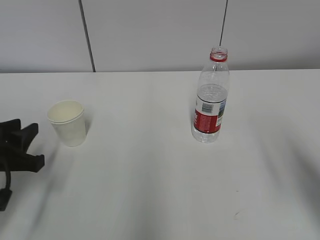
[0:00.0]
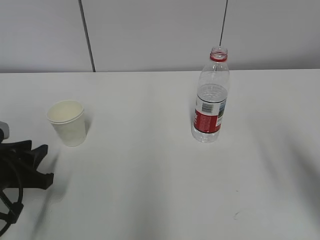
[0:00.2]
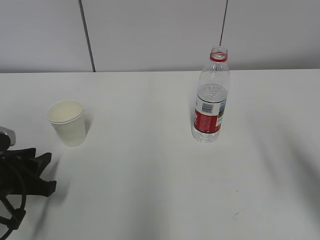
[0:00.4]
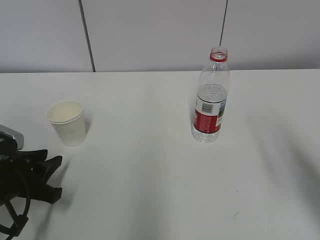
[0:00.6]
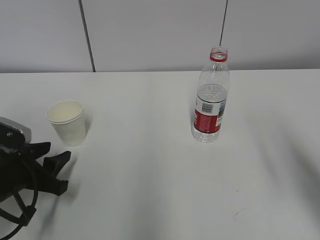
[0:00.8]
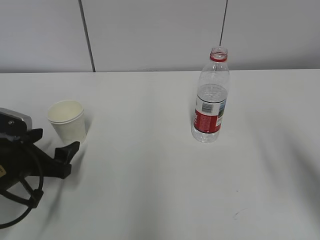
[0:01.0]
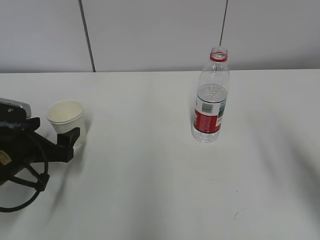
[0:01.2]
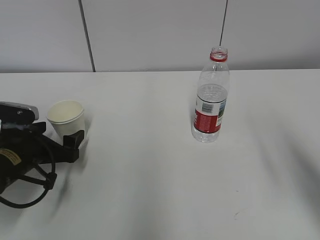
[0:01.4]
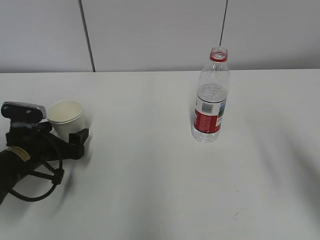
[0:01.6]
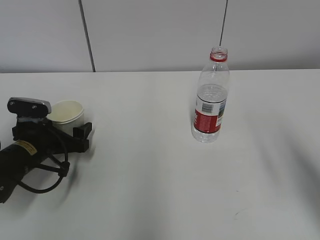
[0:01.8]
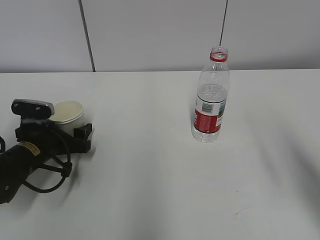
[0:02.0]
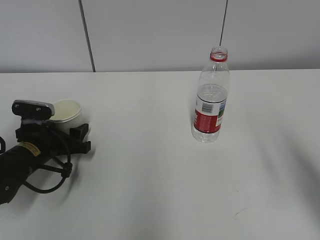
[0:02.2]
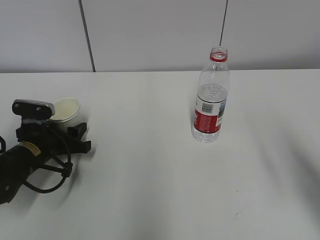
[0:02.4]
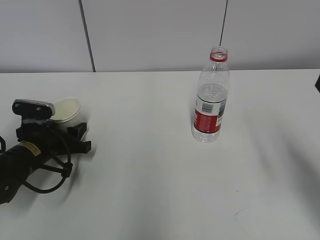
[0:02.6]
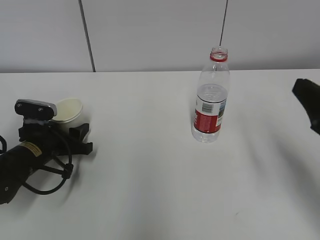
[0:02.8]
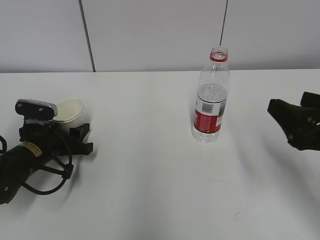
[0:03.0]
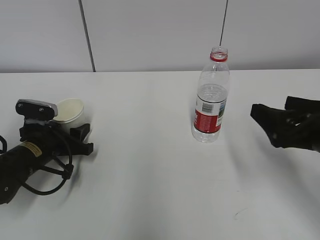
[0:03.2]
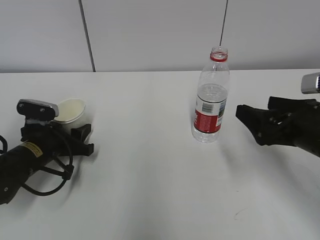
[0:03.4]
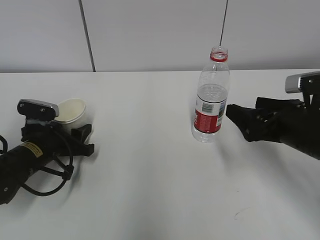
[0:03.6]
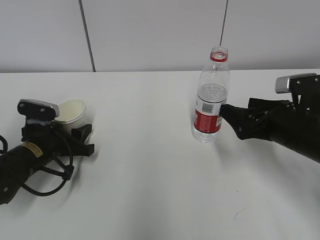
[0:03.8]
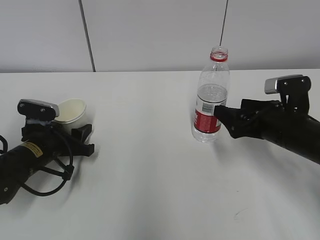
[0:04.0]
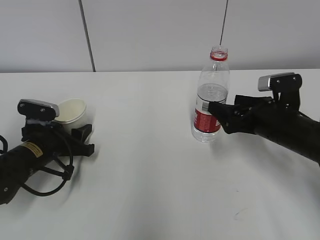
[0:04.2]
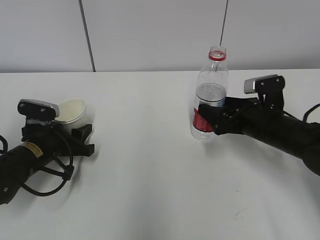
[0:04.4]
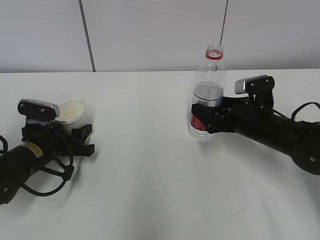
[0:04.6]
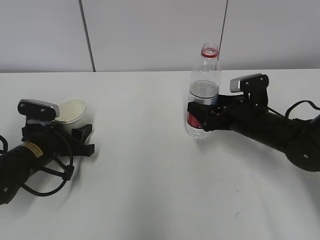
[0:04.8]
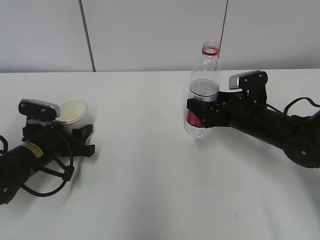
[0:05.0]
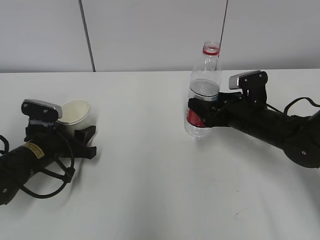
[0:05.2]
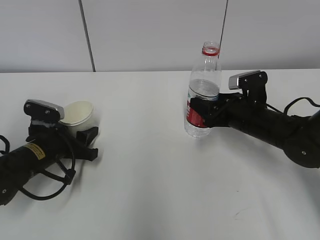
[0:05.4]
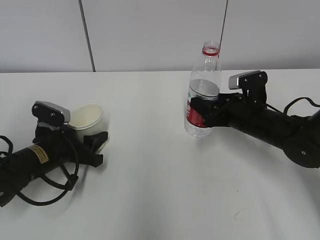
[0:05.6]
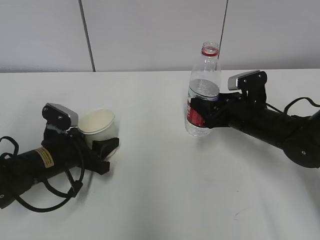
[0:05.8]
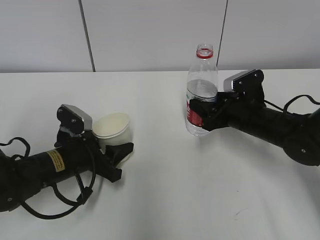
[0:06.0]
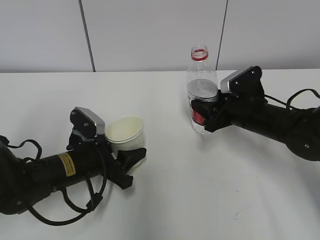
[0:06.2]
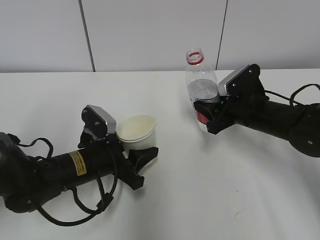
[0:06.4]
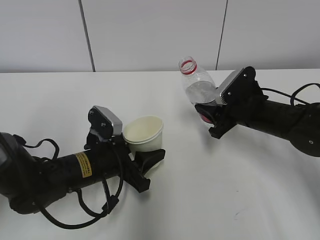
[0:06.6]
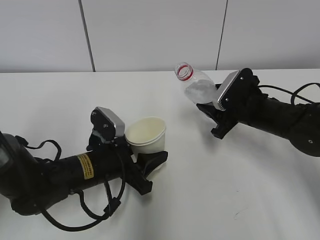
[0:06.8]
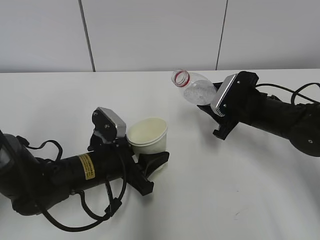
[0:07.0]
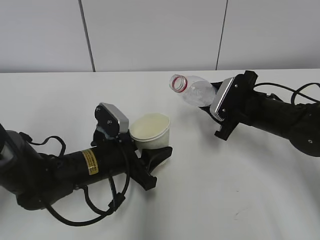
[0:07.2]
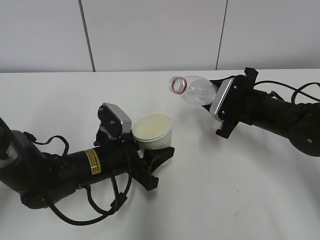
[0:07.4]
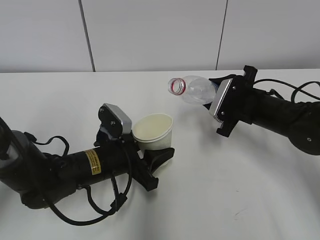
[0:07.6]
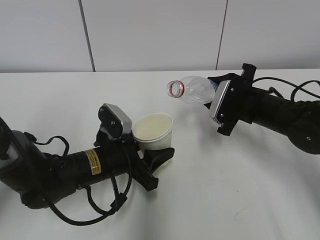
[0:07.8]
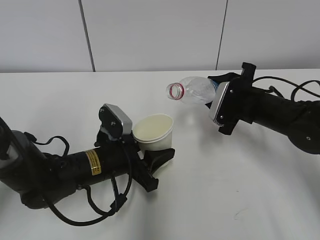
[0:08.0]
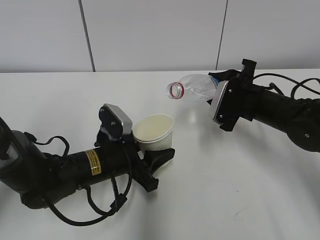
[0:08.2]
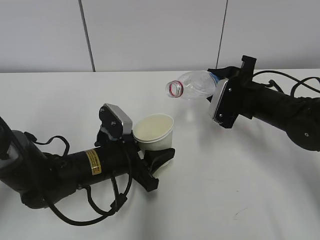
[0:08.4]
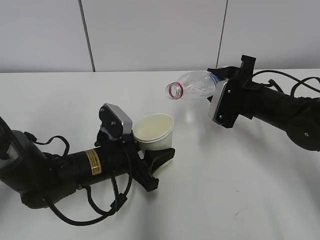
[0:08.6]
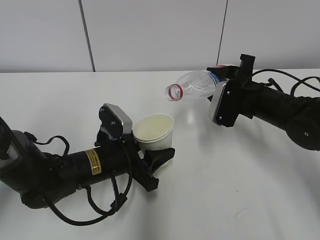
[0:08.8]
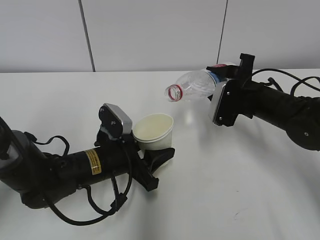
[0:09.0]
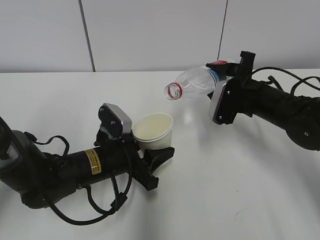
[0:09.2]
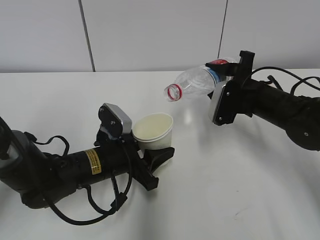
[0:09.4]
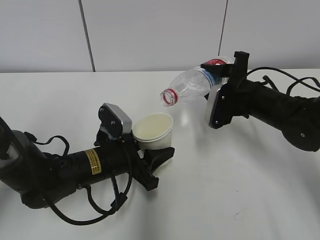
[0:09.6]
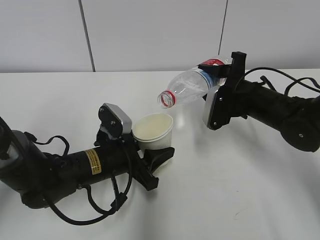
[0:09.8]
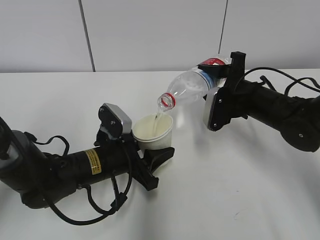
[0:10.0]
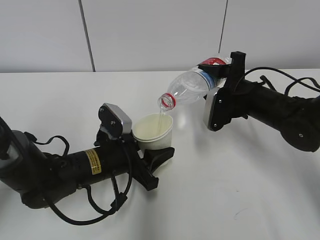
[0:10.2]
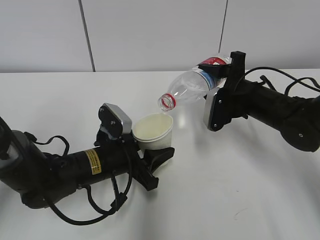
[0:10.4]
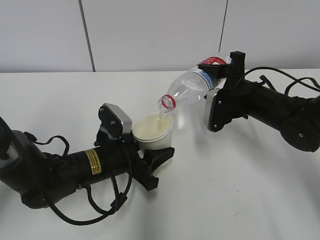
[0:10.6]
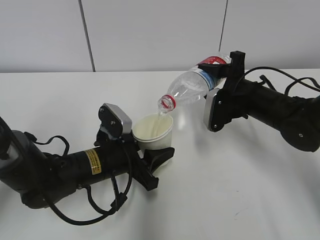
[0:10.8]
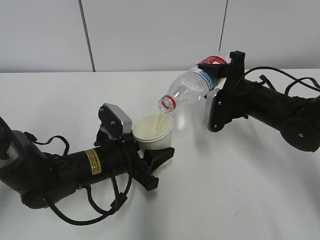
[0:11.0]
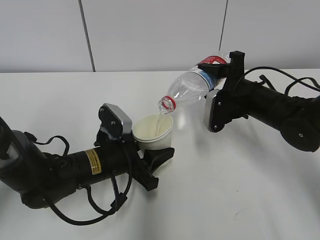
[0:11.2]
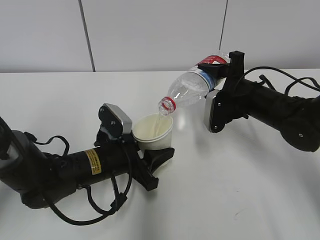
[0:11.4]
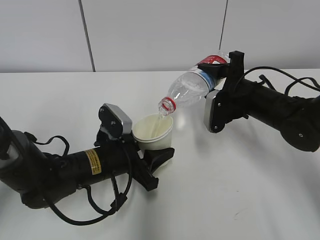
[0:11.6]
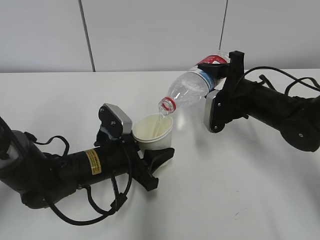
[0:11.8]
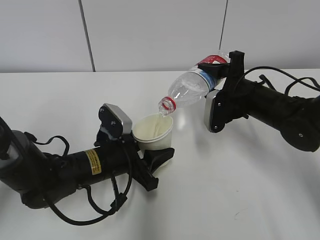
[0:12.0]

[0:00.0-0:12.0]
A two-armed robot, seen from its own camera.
Step, 0:01.4 to 0:03.6: Grab the water bottle with the right hand.
Step, 0:03.8 to 0:07.4: Lift the paper cup with the left hand.
Step, 0:07.6 to 0:10.8: Pour water with the right hand.
0:00.0 to 0:01.6: The left gripper travels forward and downward by some 10 cm, and opens up.
0:01.6 to 0:03.0: The right gripper shifts by approximately 5 cm, while the left gripper closes its fingers.
0:03.0 to 0:04.4: The right gripper is displaced forward and downward by about 15 cm, and opens its fingers.
0:04.4 to 0:06.0: The left gripper travels to the right by about 5 cm, while the right gripper closes up.
0:06.0 to 0:07.6: The left gripper goes about 5 cm to the right.
0:07.6 to 0:09.0: The grippers stay close to where they were, moving slightly.
0:09.0 to 0:10.4: The grippers stay close to where they were, moving slightly.
0:10.4 to 0:12.0: Both grippers stay about where they are.

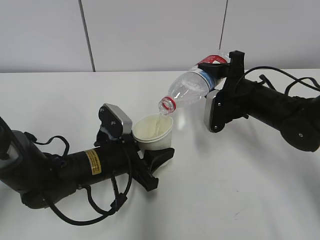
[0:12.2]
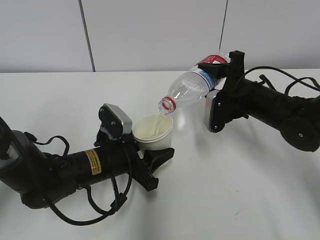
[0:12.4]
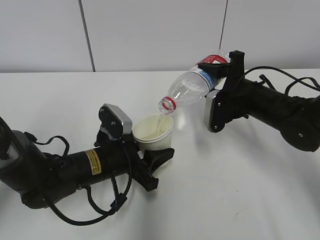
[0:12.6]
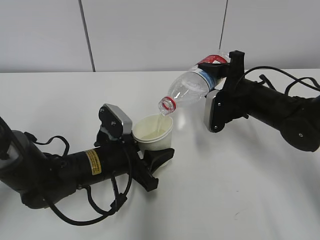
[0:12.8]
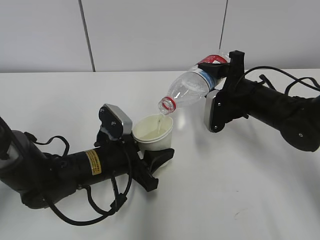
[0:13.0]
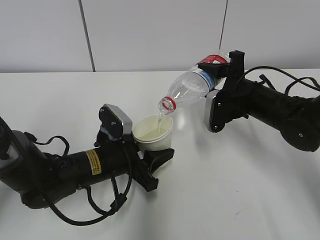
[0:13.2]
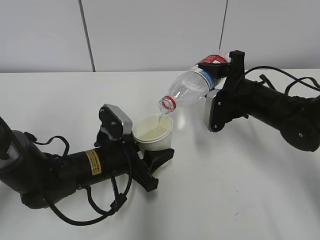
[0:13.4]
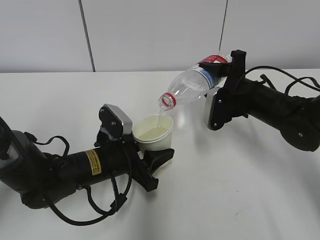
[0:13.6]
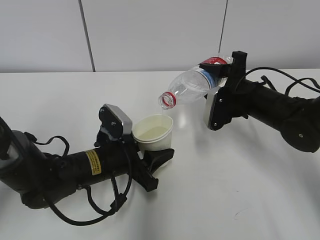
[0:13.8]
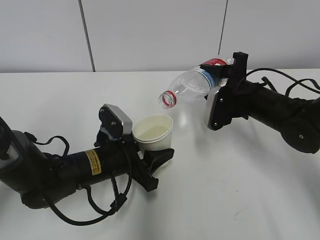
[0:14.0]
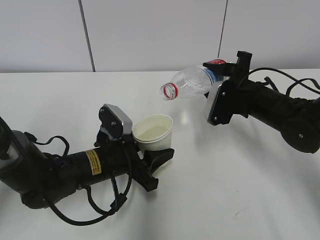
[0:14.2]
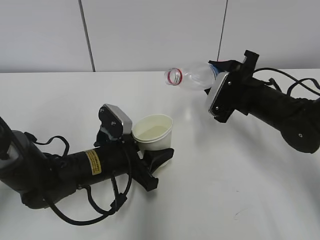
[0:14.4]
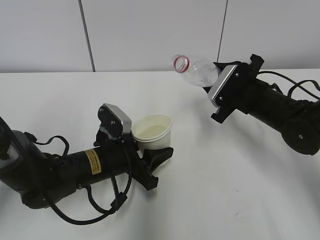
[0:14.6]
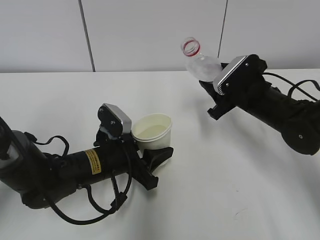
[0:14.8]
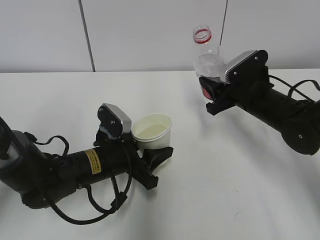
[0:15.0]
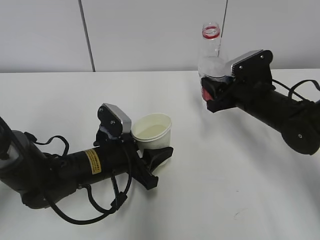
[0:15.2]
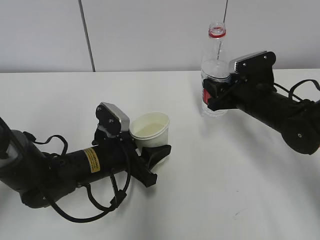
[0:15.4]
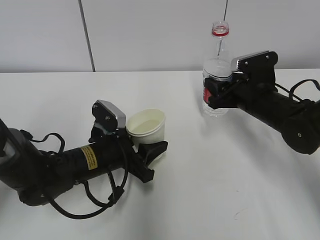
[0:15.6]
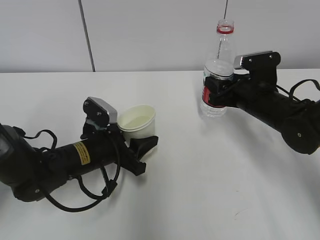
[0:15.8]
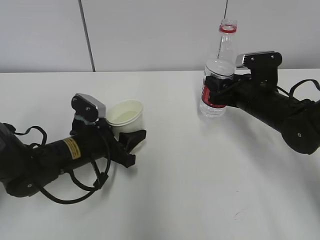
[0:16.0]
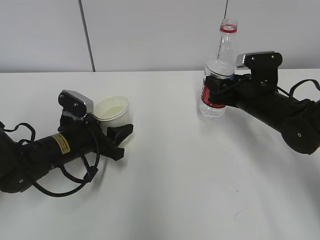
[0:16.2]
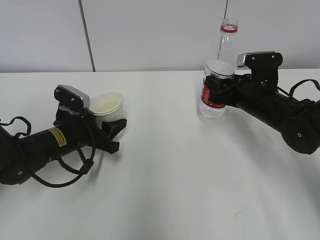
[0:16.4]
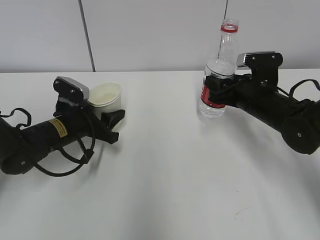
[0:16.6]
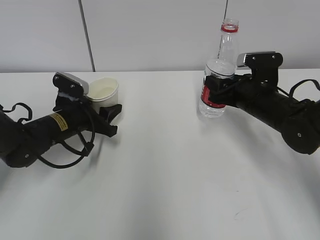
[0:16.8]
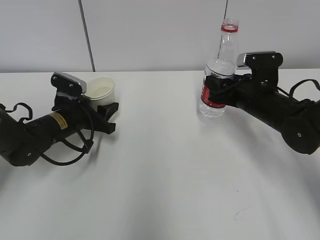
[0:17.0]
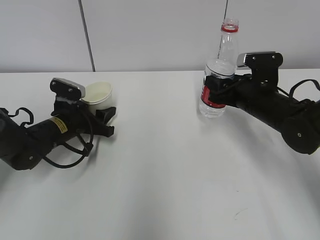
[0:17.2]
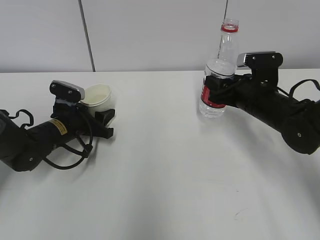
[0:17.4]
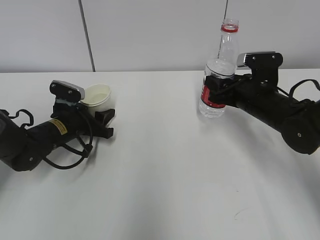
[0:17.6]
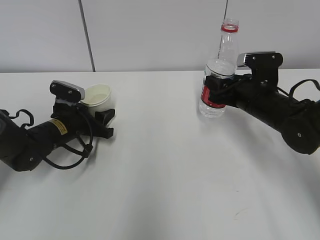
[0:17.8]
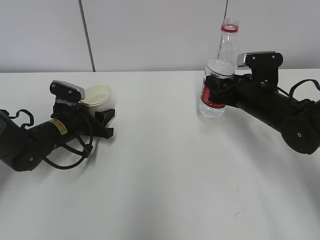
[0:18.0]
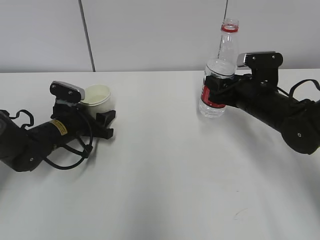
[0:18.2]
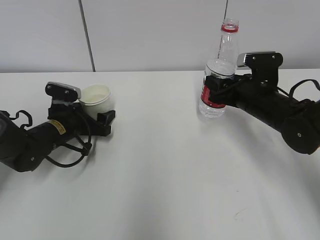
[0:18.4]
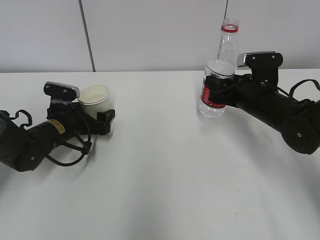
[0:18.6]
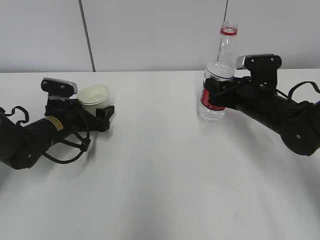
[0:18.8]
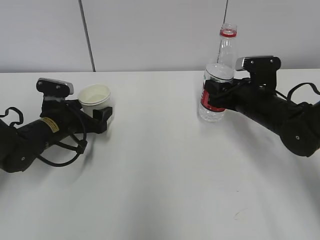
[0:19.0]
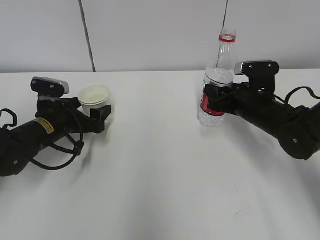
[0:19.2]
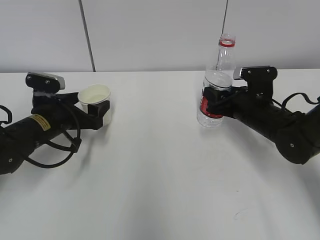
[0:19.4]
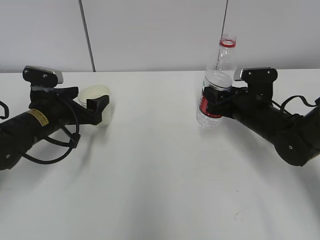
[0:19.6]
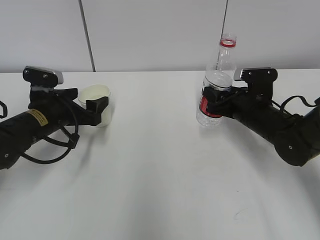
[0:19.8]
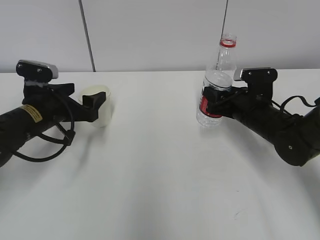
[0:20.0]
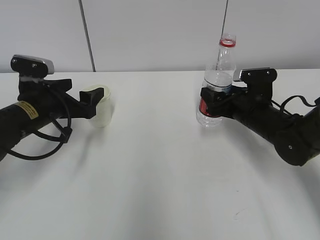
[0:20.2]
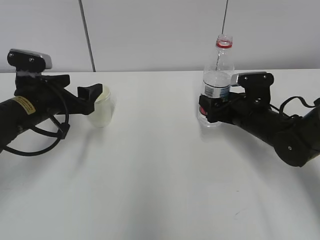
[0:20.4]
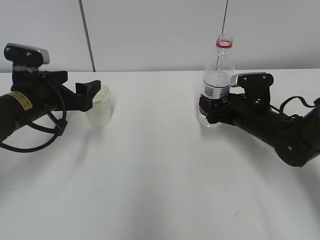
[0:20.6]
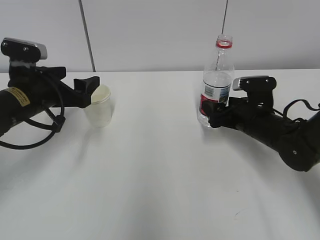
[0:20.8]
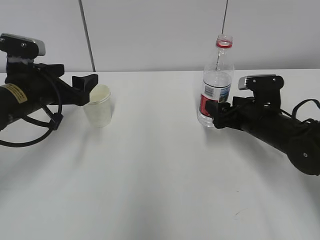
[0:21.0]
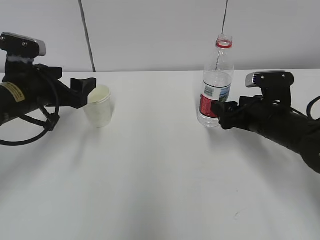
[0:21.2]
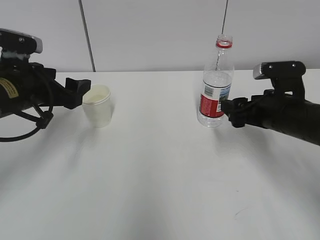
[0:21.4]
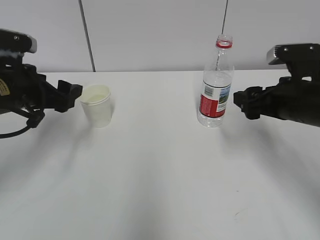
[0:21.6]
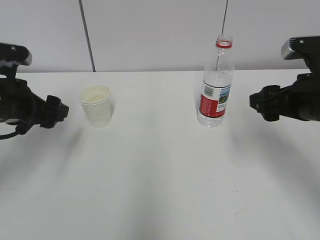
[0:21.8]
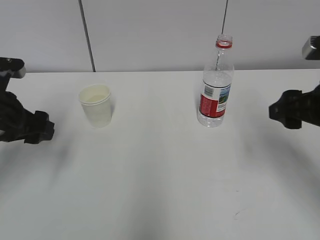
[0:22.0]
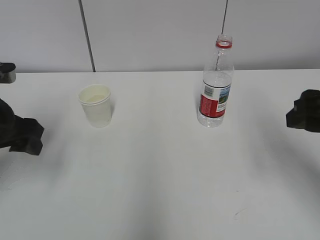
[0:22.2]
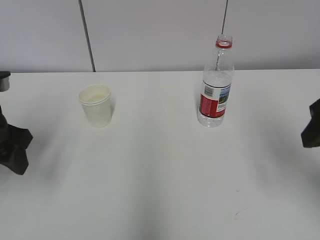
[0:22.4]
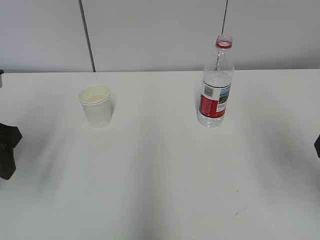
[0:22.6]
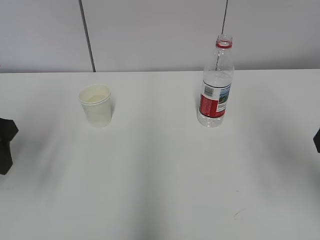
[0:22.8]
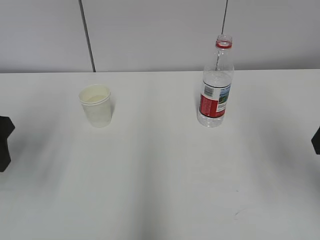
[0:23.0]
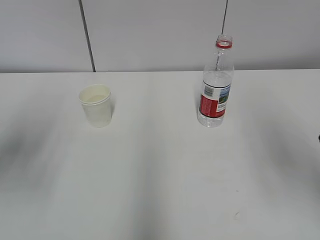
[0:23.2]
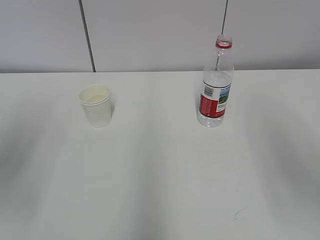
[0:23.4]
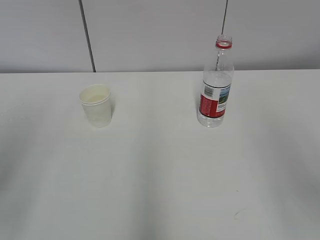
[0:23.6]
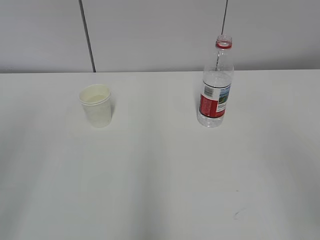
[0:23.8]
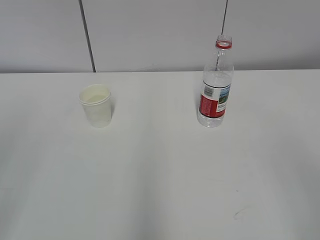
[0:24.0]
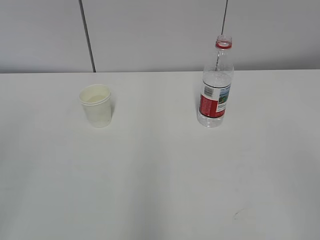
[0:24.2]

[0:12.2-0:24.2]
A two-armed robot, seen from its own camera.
0:12.2 to 0:13.8: The two grippers keep their place.
0:15.2 to 0:16.6: The left gripper goes some 10 cm to the left and forward.
0:16.6 to 0:18.2: The grippers make only small movements.
0:18.2 to 0:19.8: The left gripper shifts approximately 5 cm upward, and opens up.
0:19.8 to 0:21.2: The left gripper shifts about 5 cm upward. Meanwhile the right gripper opens.
0:21.2 to 0:22.6: The left gripper shifts approximately 10 cm backward and upward; the right gripper travels upward and backward by roughly 25 cm.
0:22.6 to 0:24.2: The left gripper moves backward and upward, about 25 cm, while the right gripper moves backward, some 20 cm.
